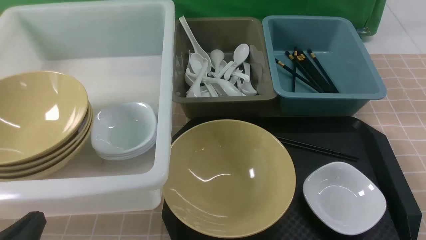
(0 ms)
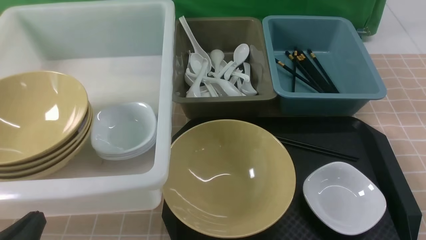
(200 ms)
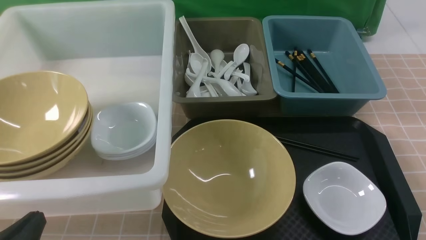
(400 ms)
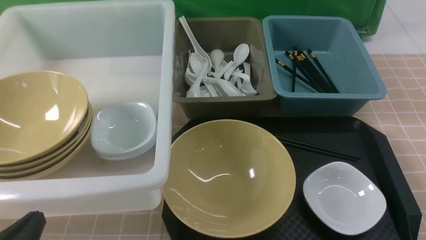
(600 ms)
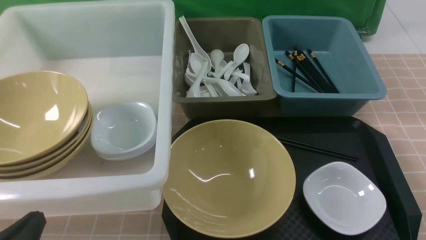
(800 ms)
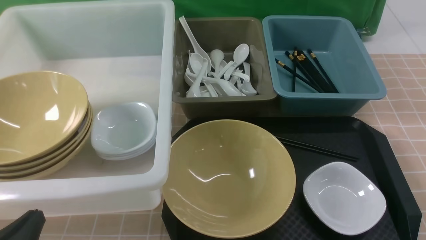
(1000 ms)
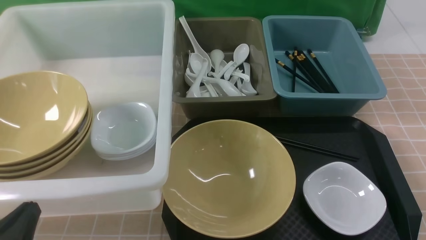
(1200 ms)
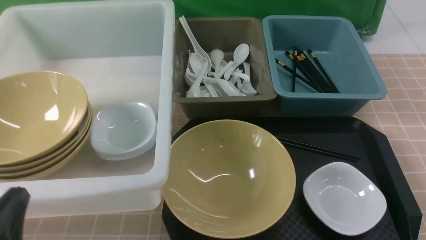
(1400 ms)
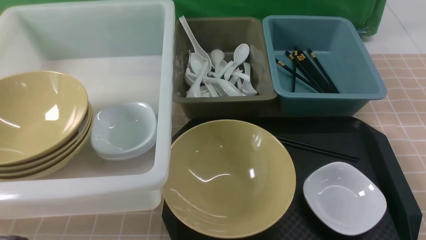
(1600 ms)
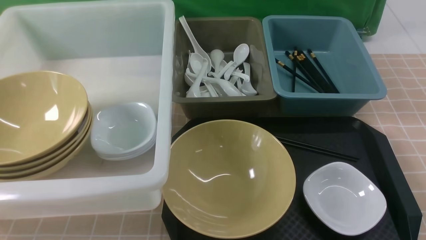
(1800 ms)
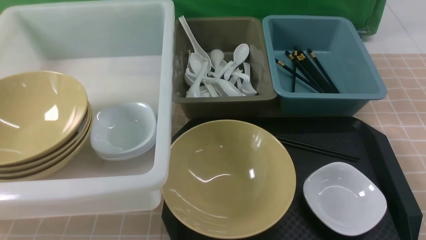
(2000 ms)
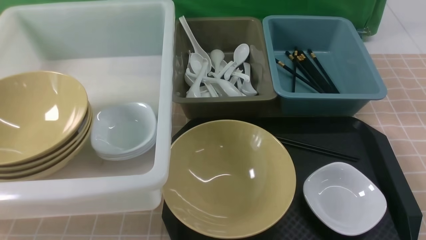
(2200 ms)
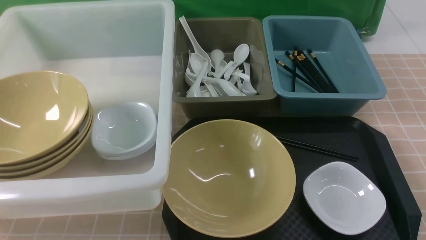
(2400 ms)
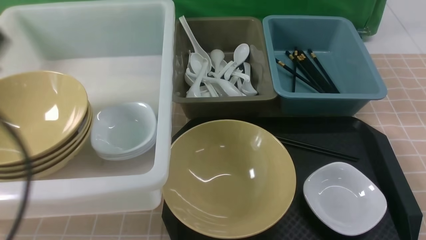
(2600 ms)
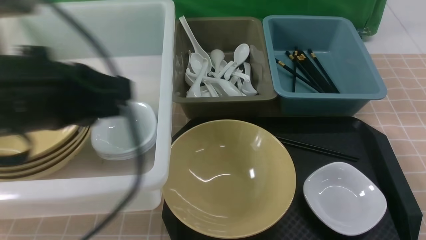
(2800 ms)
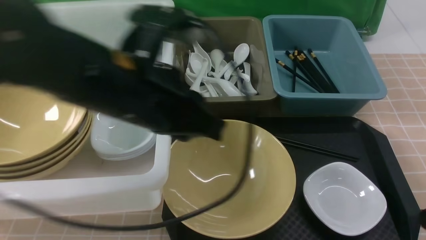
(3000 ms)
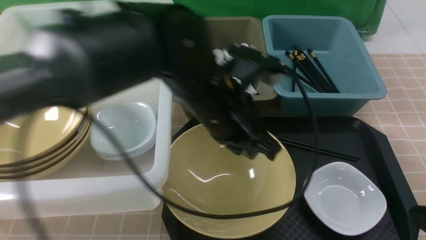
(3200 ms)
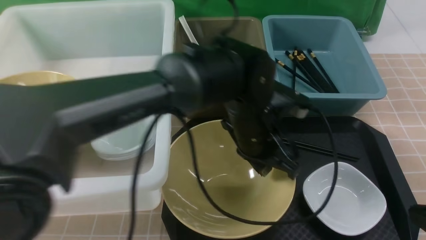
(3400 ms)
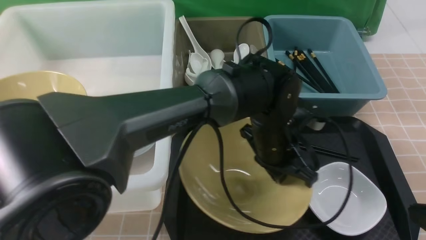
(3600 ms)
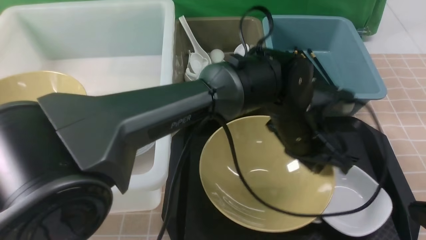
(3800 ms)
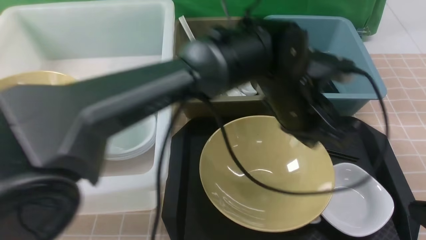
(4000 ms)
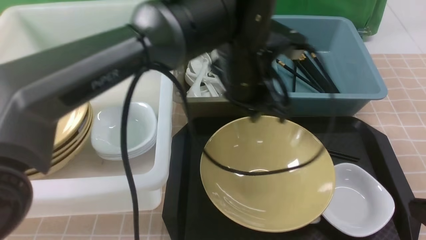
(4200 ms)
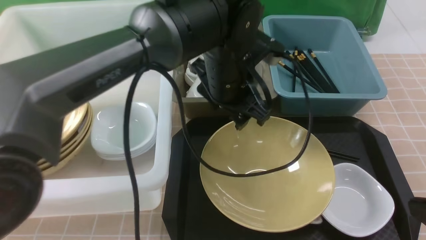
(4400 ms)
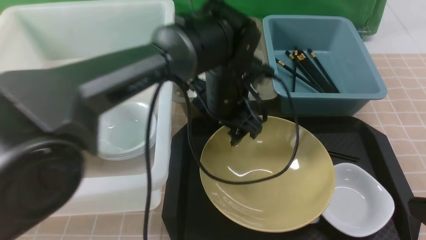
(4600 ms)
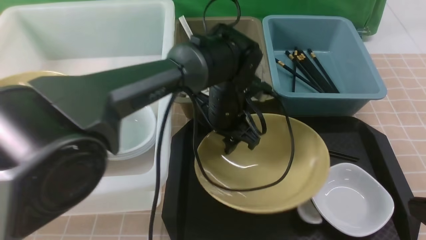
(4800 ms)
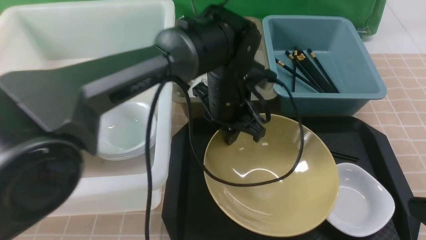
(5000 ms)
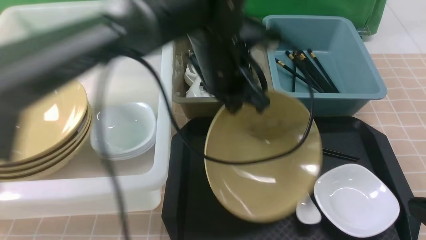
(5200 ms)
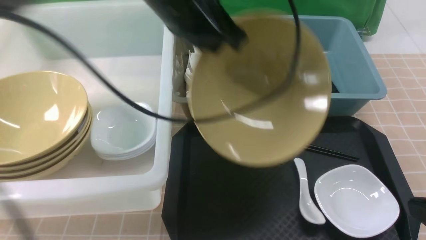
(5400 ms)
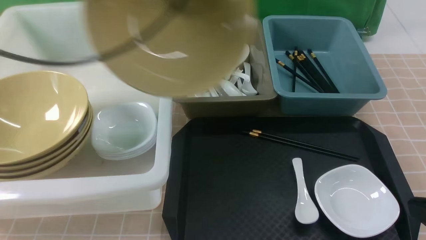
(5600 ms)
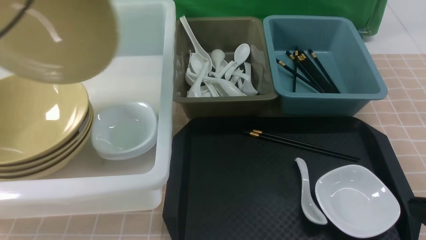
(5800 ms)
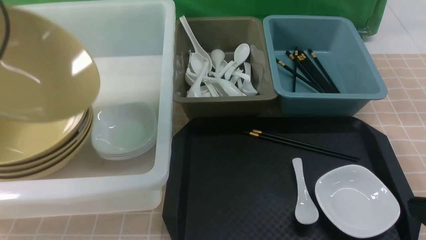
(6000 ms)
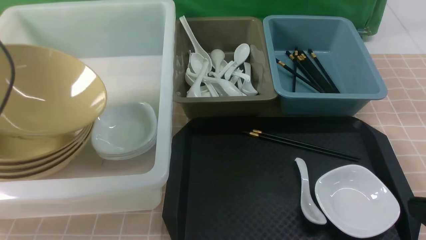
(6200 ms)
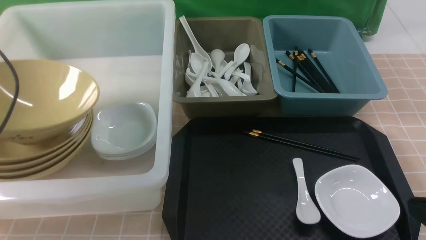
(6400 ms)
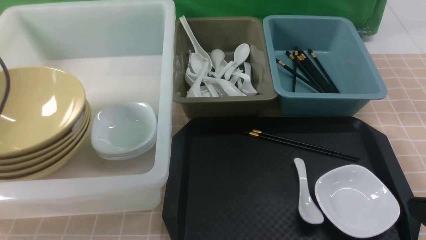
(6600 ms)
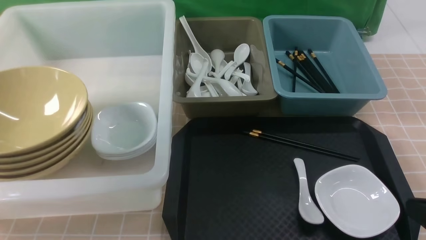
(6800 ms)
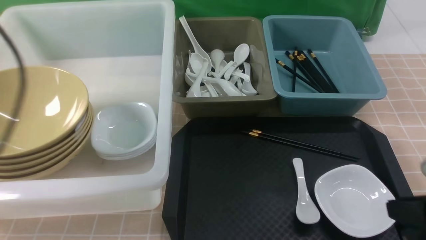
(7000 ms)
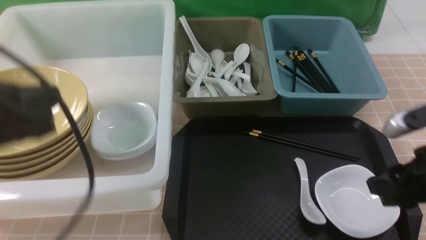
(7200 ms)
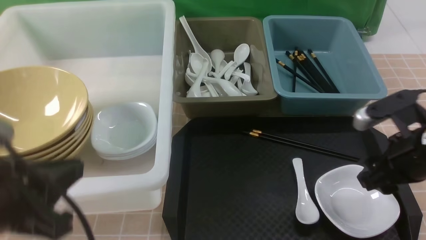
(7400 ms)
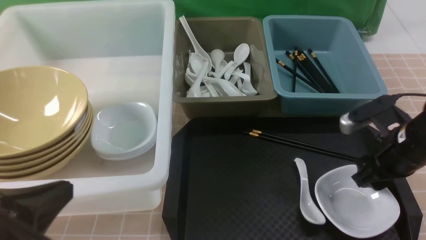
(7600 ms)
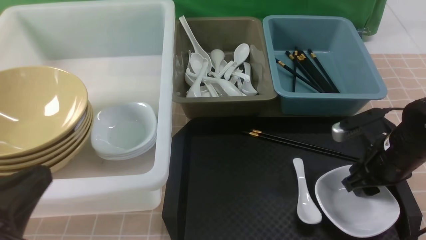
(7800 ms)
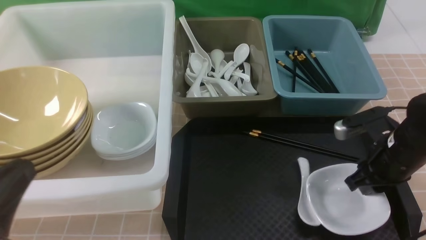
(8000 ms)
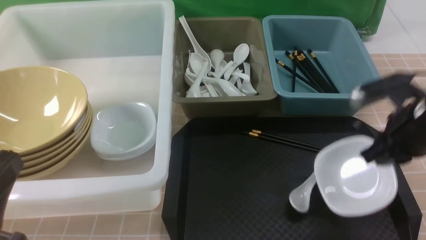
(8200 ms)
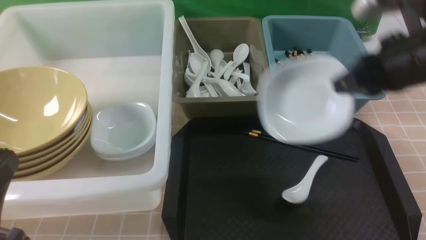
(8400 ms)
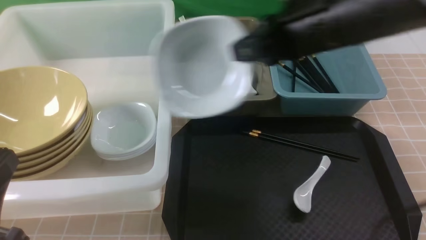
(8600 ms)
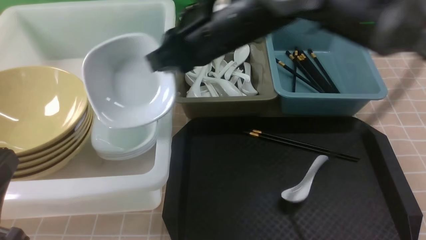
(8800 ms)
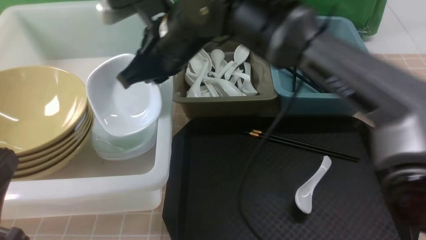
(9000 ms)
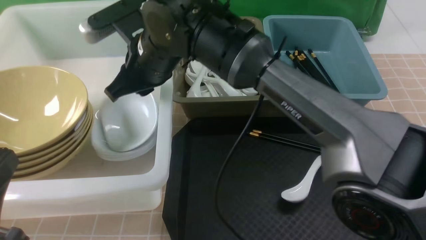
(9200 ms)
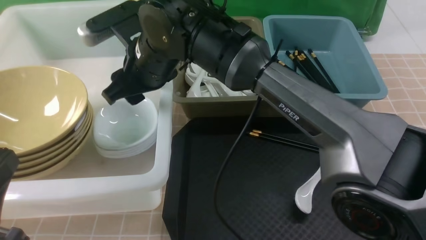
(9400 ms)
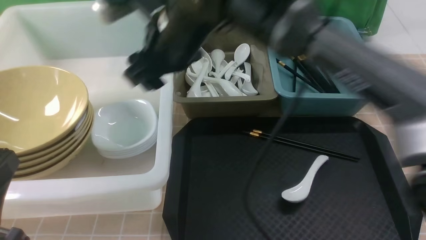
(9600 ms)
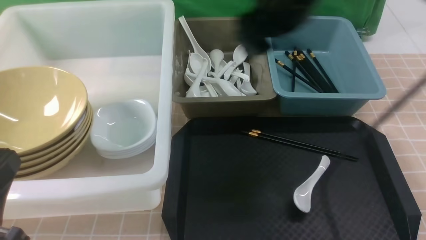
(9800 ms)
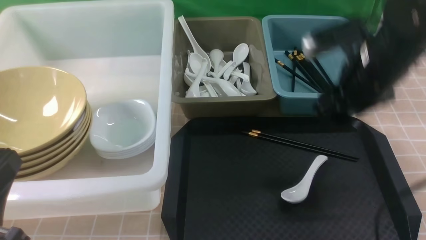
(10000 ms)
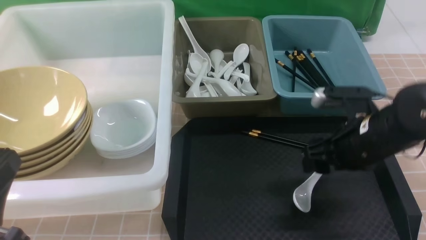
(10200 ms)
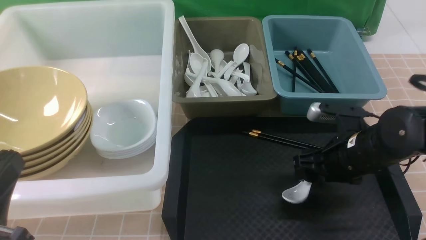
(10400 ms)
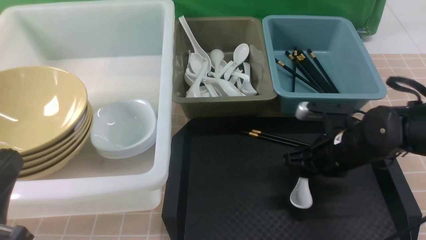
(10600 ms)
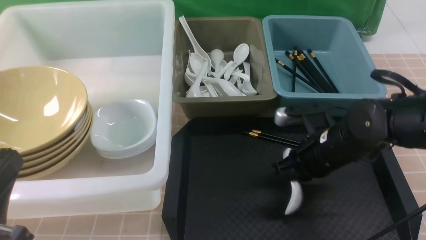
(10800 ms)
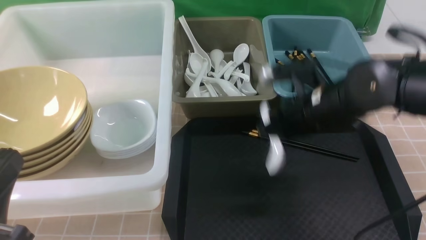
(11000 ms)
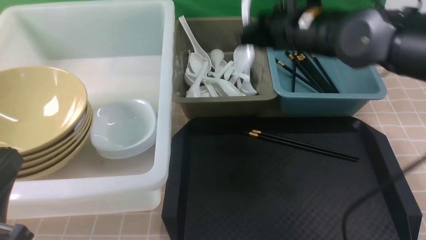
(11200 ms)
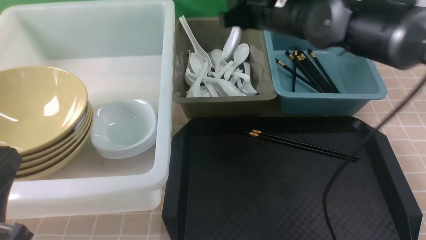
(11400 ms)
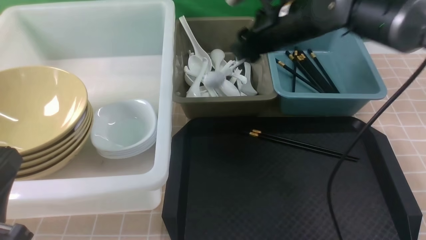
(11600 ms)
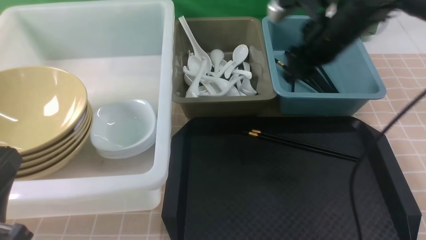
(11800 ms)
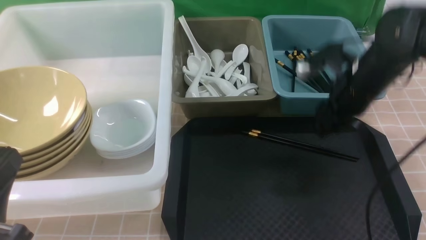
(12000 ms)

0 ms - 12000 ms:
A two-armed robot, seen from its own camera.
Task of the whole recording: on brown table put chopsticks spoon bowls plates into blue grey white boxes.
Step, 0 ms - 5000 ms: use the left arm to grab the yellow noodle bowl on the left.
Step, 5200 ms - 7000 ms: use the left arm to put the noodle bowl into the large storage box on the left.
Step, 7200 ms - 8000 ms: use the right arm to grab the plate.
Step, 8200 ms - 9200 ms: use the right arm to put the plate into the large storage box on the left.
Step, 9600 ms - 10600 ms: use the right arm to grab the soup spoon in the middle.
Step, 10800 ms - 11600 ms: use the right arm to put the soup spoon into the small storage box in the middle.
0 ms - 1600 ms: The left gripper goes roughly 5 cm upward.
1600 ms - 3000 ms: The right gripper travels upward and back again, approximately 10 cm each way, and closes up. Meanwhile the left gripper shifts approximately 30 cm to the right, forward and upward.
3000 ms - 4400 ms: The left gripper goes some 15 cm forward, to the right and downward, and opens.
4400 ms - 6000 ms: The left gripper travels to the left by roughly 35 cm, and closes.
6000 ms - 7600 ms: The left gripper shifts some 25 cm backward, to the right and downward, and opens, then closes once more; the right gripper heads forward, covering some 15 cm, and opens its fingers.
7600 ms - 9000 ms: The right gripper shifts some 35 cm to the left and upward, and closes its fingers.
9000 ms - 10400 ms: The right gripper shifts about 30 cm to the right and downward, and opens up.
10400 ms - 12000 ms: The right gripper travels forward and upward by some 10 cm, and closes and opens again.

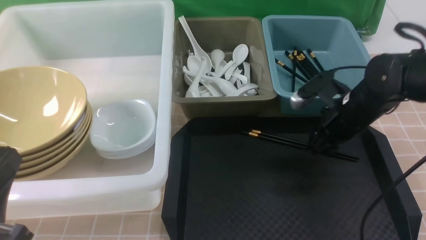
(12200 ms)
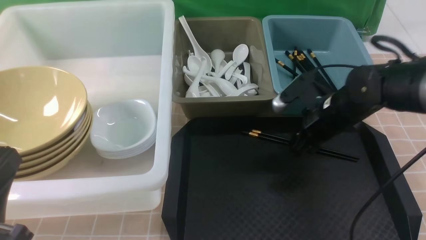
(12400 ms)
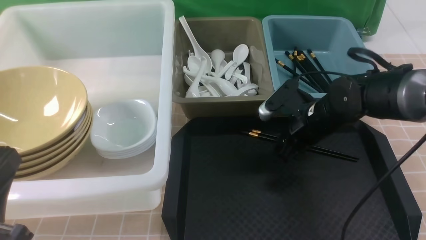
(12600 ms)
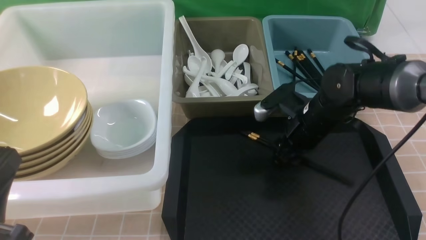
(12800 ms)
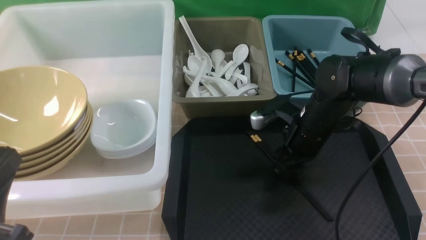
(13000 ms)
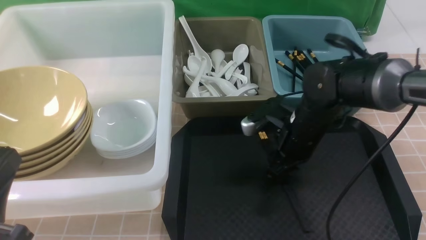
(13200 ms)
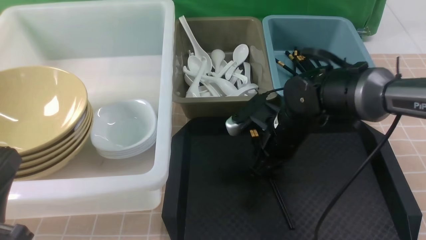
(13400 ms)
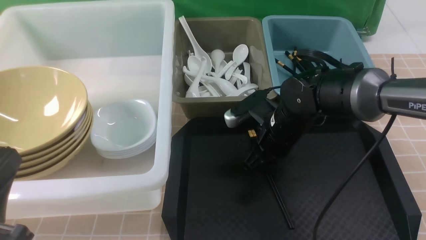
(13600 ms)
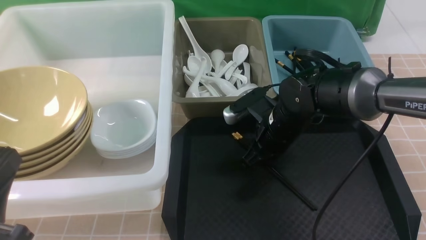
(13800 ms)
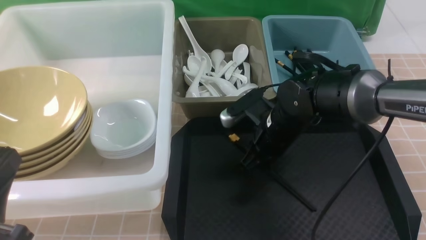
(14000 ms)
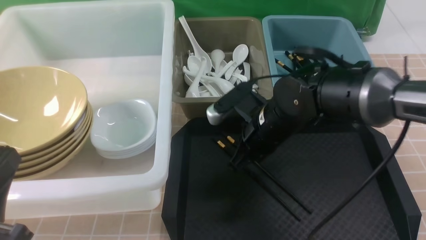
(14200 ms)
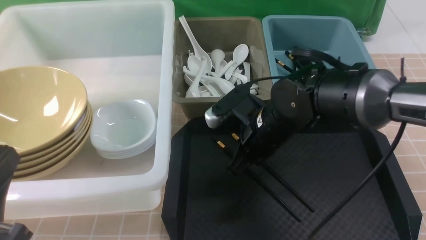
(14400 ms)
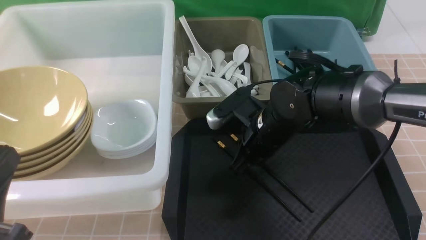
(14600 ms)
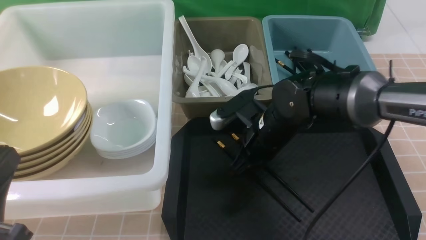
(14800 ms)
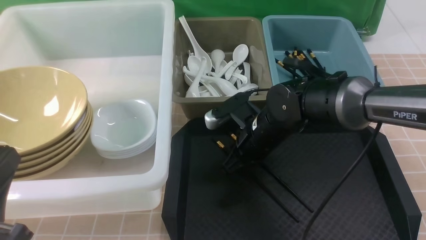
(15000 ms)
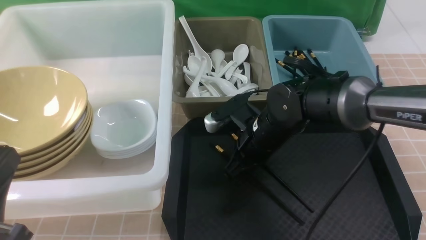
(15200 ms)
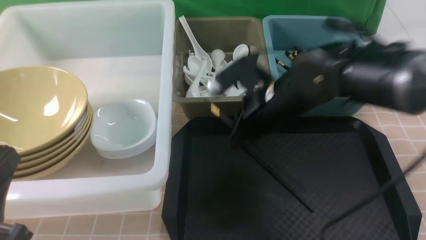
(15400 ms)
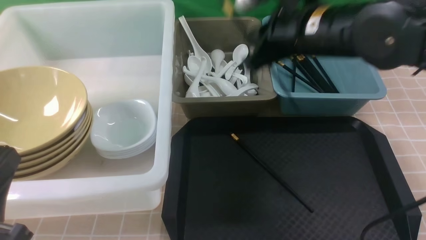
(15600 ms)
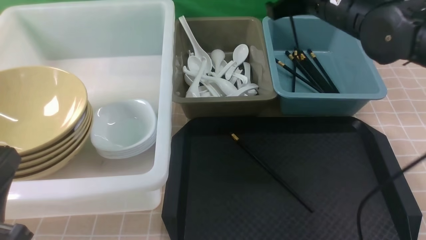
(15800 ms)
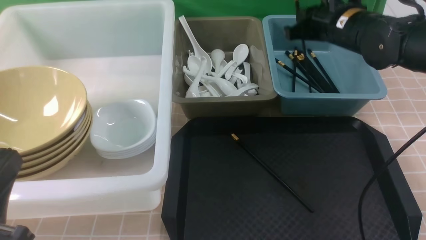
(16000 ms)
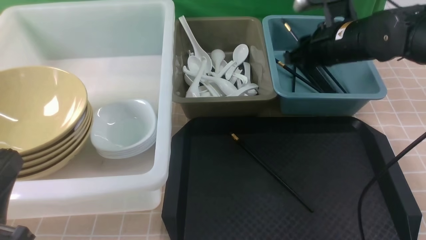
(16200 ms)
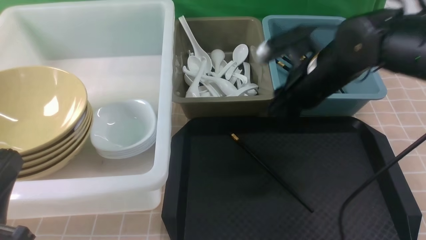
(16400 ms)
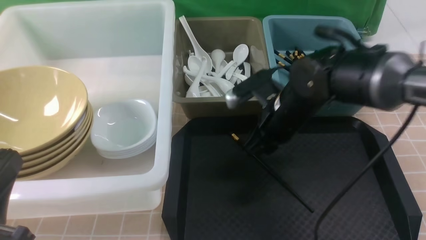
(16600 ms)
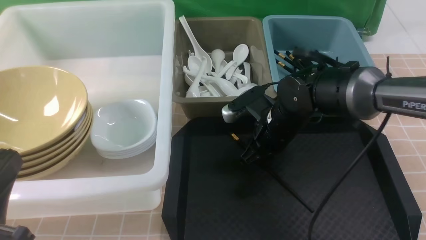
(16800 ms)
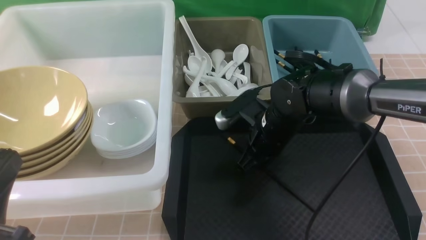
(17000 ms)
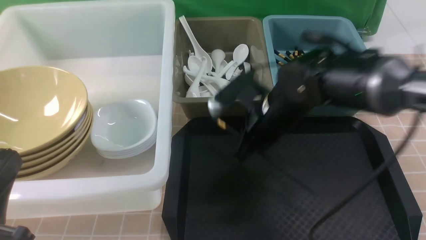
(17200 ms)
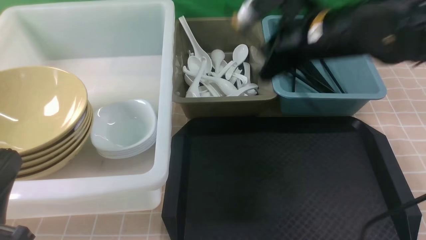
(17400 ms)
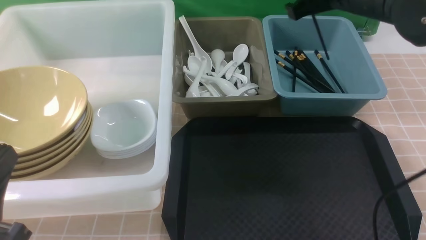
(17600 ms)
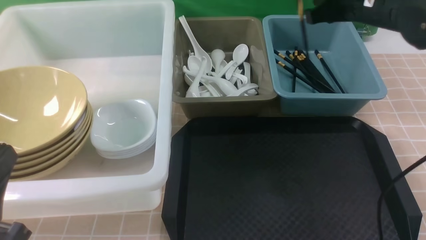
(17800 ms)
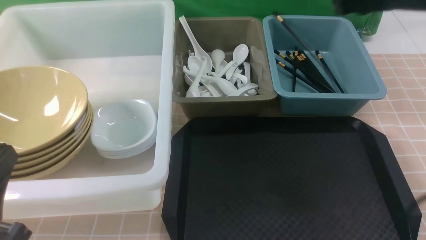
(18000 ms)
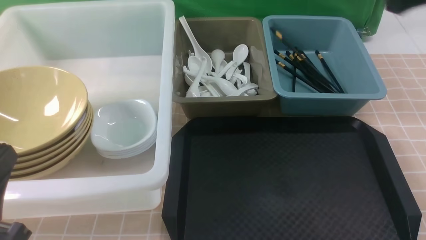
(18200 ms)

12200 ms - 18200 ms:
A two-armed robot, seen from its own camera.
Task of the whole recording: on brown table put chopsticks spoon bowls plates into blue grey white boxes.
Step, 12200 ms - 15200 ms: use the right arm to grab a chopstick.
Step, 15400 ms - 16200 ms: use the right arm to put a chopstick into the small storage box on the right.
Step, 16400 ms - 17000 ms: use the right arm to grab a chopstick.
Step, 17200 ms - 18000 ms: use the right arm to put a chopstick into the small storage box on the right.
12200 ms - 13800 ms: The right gripper goes roughly 10 cm to the left, and closes up.
13800 ms - 15200 ms: The grippers make only small movements.
15200 ms - 16600 ms: The right gripper reaches some 10 cm upward, then returns, and opens up.
16600 ms - 18200 ms: The right gripper shifts about 25 cm upward, to the right and backward, and closes up.
